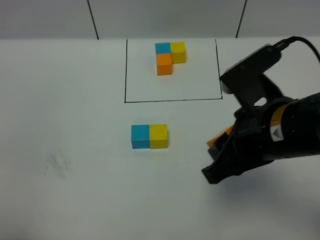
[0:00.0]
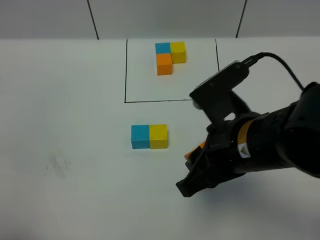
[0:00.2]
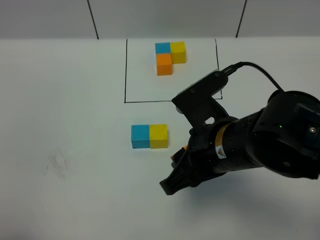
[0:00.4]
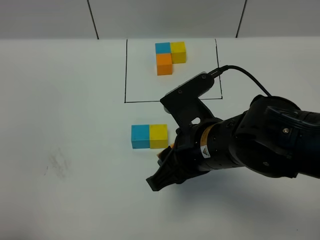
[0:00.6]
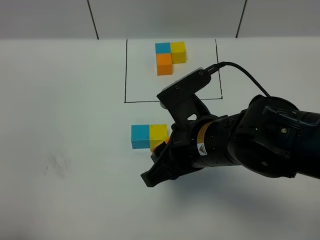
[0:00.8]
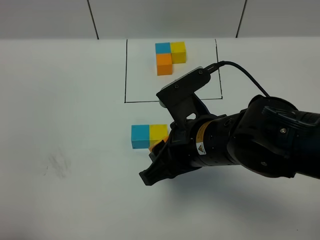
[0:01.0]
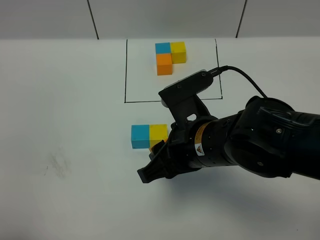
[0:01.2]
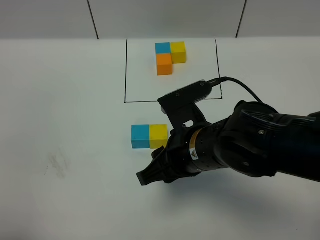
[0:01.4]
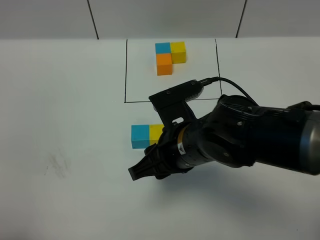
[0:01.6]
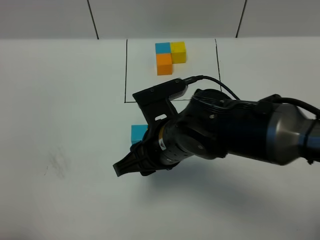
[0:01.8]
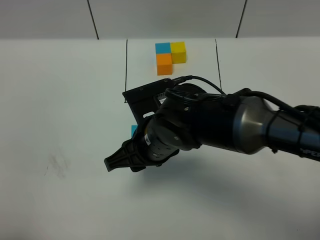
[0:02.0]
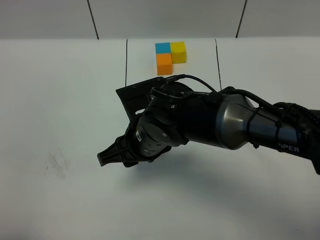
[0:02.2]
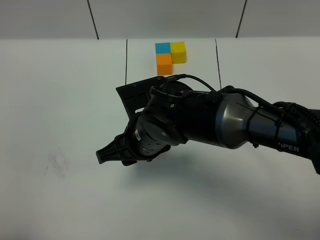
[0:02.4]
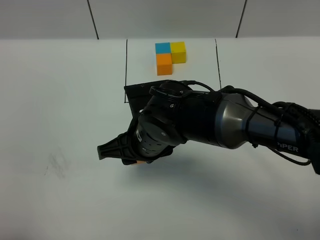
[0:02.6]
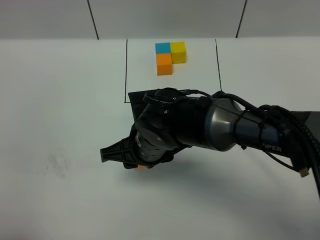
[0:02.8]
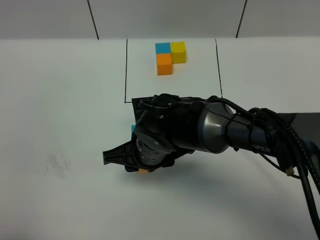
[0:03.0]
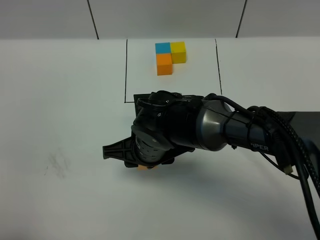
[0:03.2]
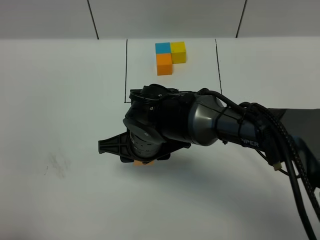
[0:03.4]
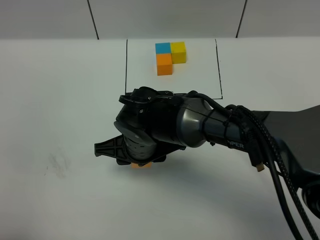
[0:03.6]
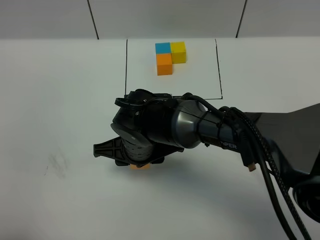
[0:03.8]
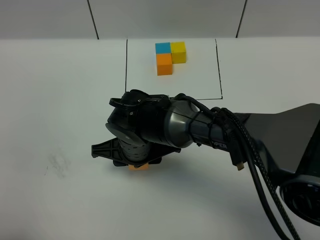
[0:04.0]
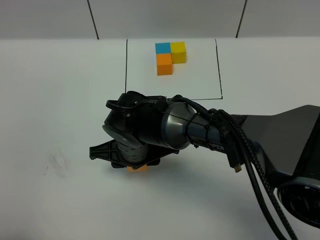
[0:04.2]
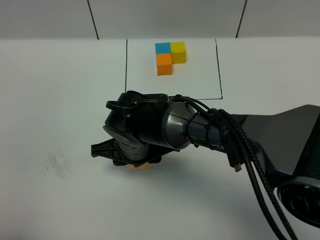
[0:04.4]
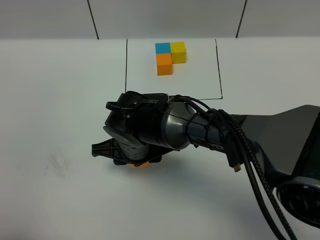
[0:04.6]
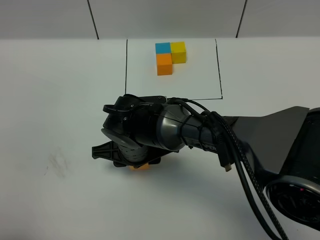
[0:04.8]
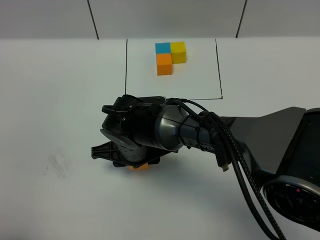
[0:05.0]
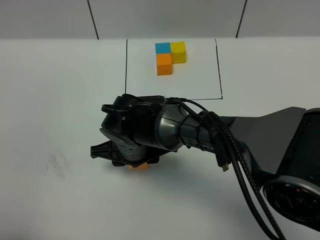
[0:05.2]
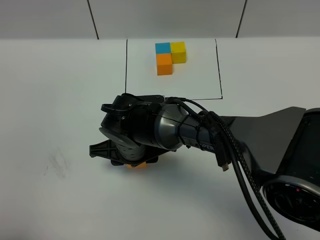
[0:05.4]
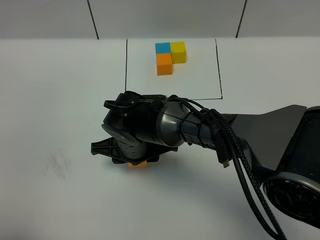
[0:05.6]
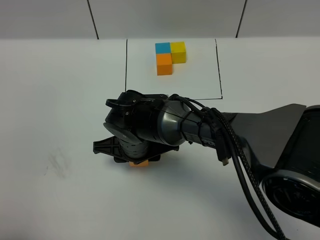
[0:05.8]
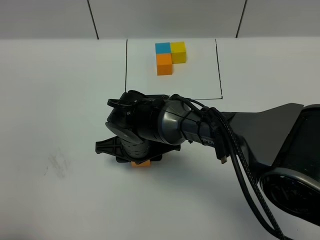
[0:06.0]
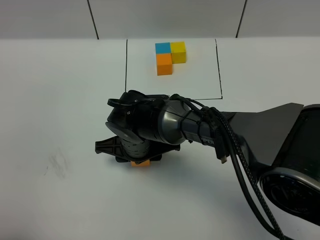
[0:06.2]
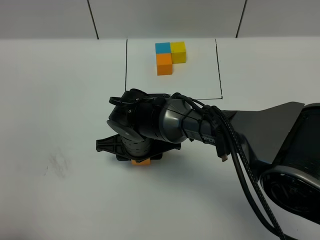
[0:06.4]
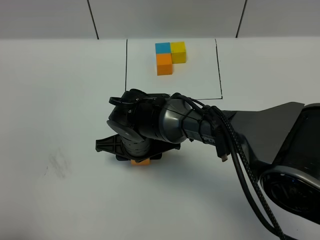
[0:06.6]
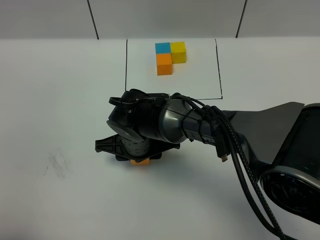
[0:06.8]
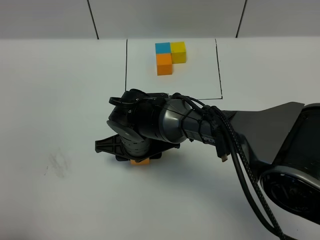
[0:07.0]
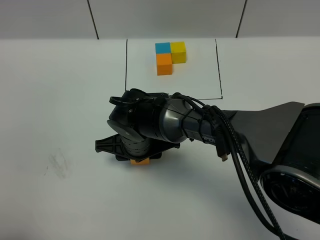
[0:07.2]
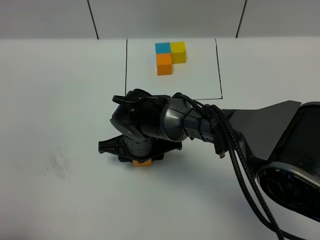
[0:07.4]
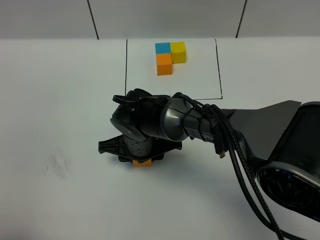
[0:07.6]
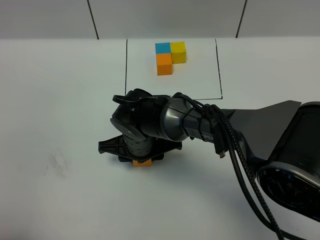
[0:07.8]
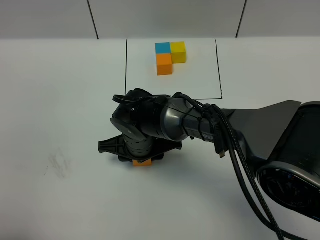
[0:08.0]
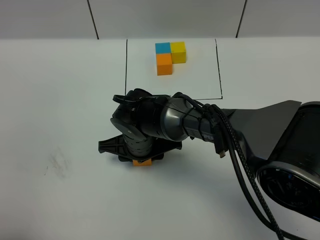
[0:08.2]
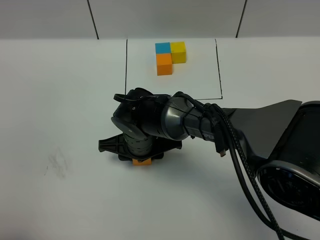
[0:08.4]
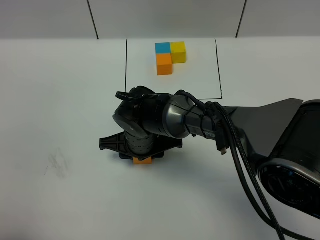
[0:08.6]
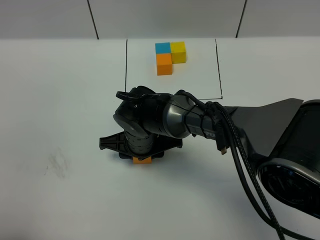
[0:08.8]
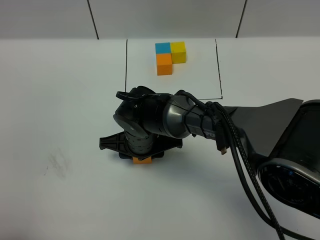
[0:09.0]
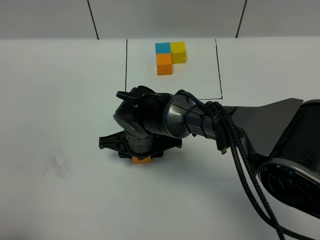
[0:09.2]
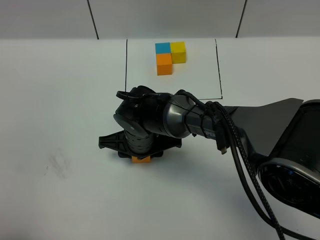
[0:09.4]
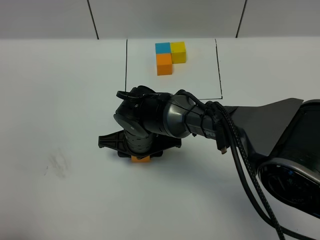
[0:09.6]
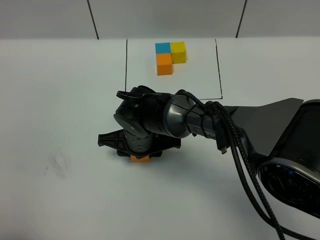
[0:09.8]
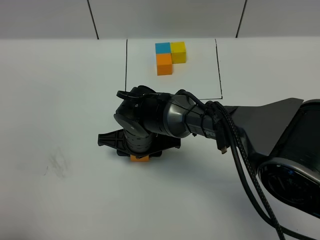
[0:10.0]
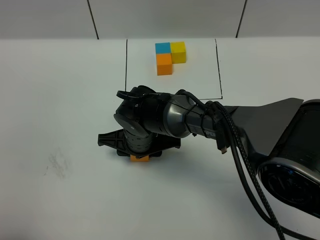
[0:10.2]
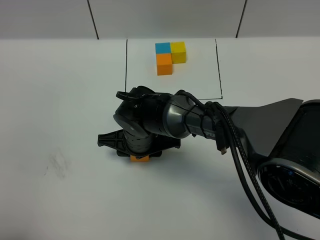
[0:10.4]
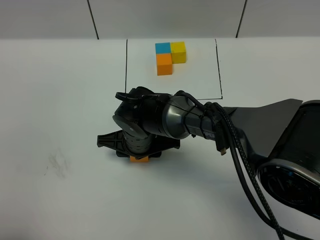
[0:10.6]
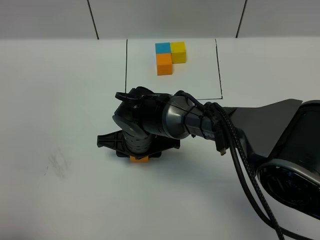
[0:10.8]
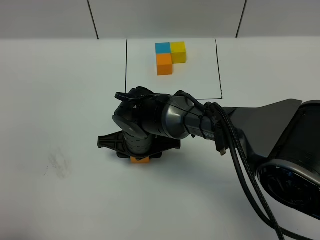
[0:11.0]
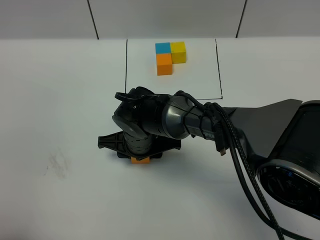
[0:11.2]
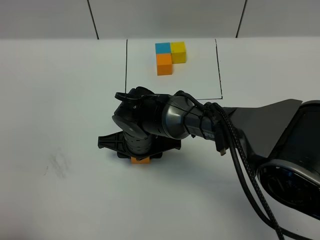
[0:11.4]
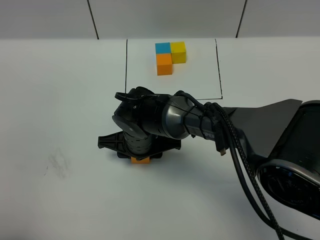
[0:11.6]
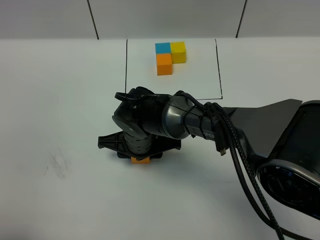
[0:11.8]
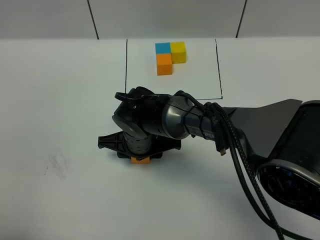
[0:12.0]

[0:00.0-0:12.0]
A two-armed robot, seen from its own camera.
Task of the whole recording: According to the building block template in front, assemble the scattered blocks together.
0:00.0 to 0:01.6: The right gripper moves to the left and downward, roughly 10 cm.
0:01.6 to 0:03.0: The right gripper heads downward and to the left, covering approximately 10 cm.
0:03.0 to 0:06.0: The grippers move only a little.
0:06.0 to 0:07.6: Both grippers stay put.
0:07.6 to 0:12.0: Both grippers stay put.

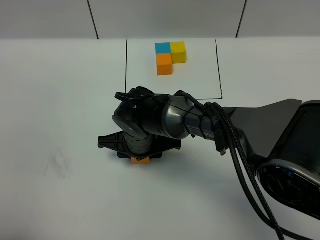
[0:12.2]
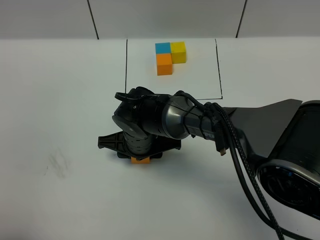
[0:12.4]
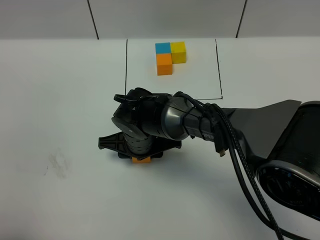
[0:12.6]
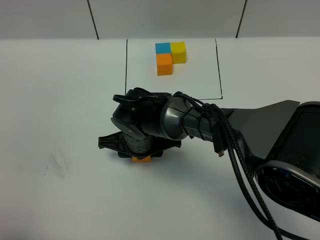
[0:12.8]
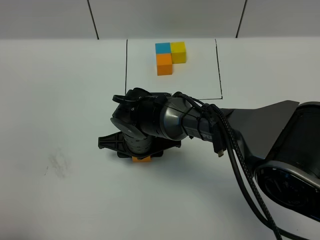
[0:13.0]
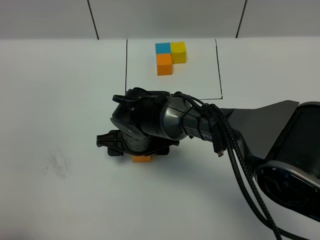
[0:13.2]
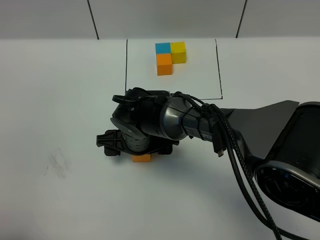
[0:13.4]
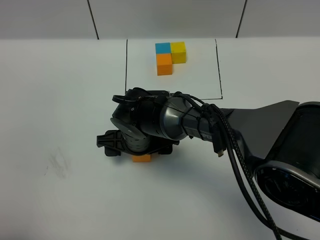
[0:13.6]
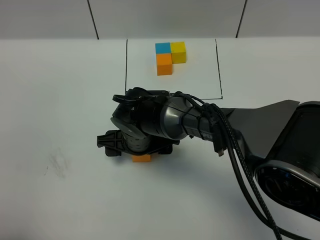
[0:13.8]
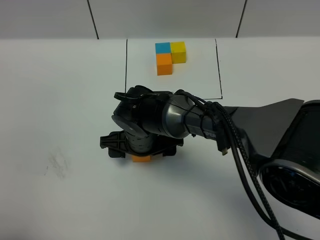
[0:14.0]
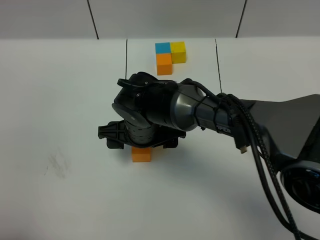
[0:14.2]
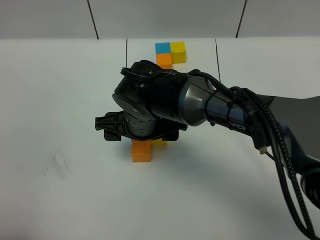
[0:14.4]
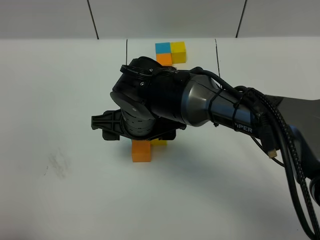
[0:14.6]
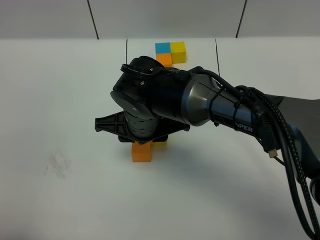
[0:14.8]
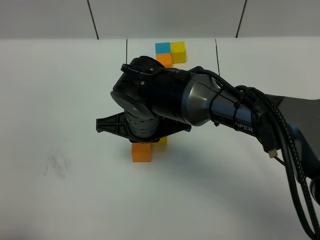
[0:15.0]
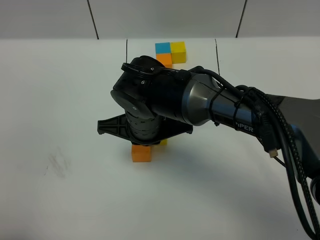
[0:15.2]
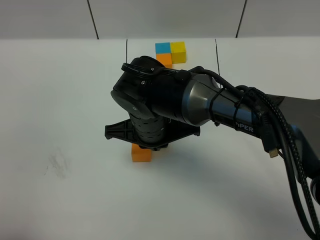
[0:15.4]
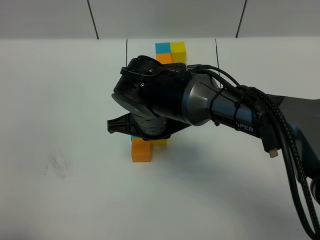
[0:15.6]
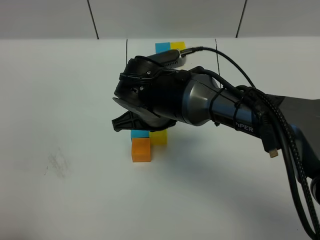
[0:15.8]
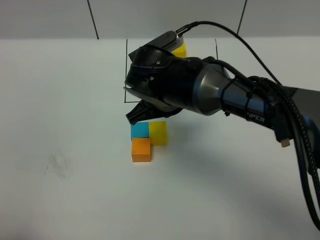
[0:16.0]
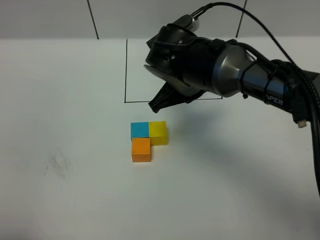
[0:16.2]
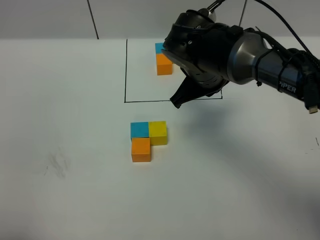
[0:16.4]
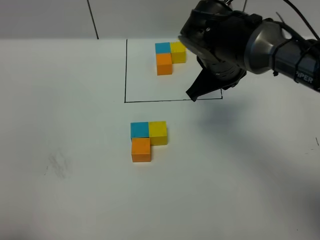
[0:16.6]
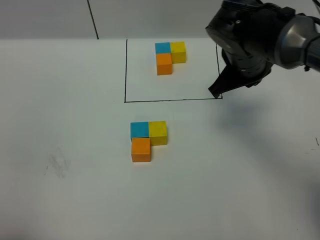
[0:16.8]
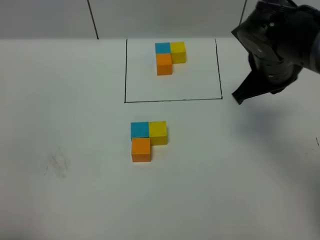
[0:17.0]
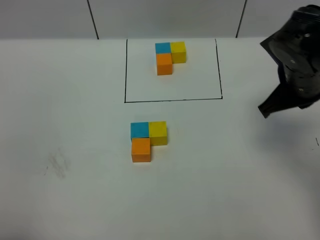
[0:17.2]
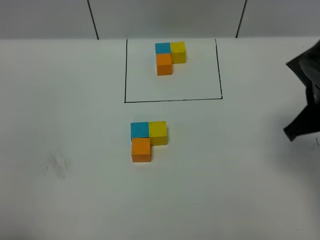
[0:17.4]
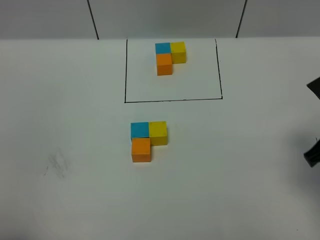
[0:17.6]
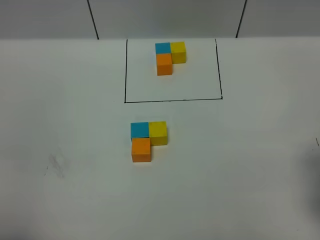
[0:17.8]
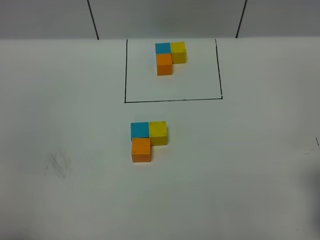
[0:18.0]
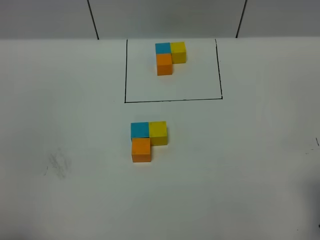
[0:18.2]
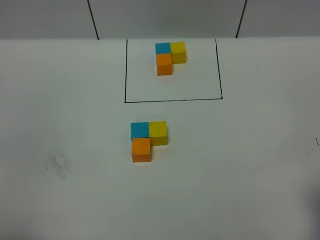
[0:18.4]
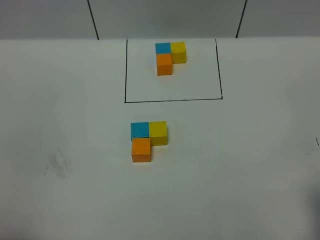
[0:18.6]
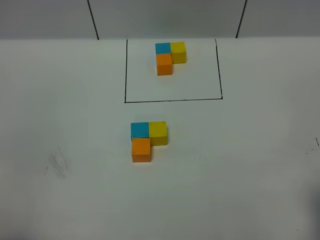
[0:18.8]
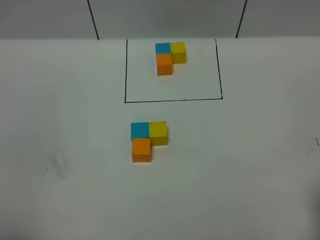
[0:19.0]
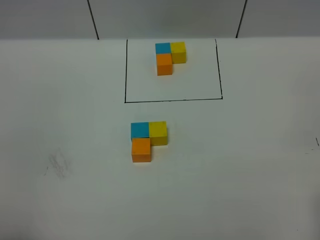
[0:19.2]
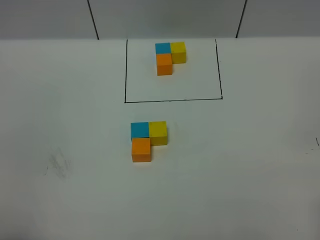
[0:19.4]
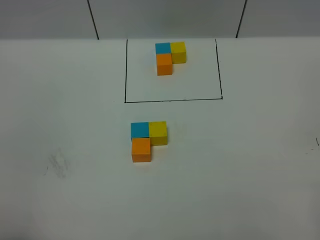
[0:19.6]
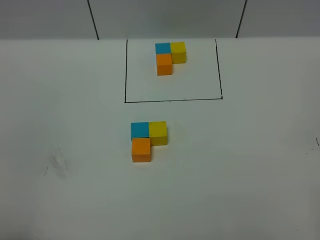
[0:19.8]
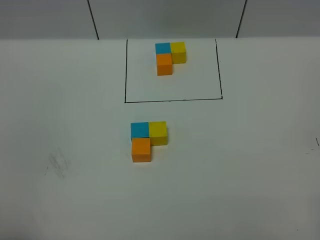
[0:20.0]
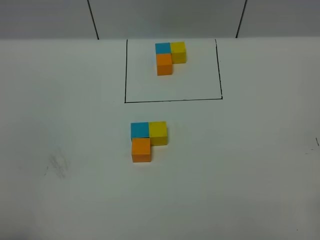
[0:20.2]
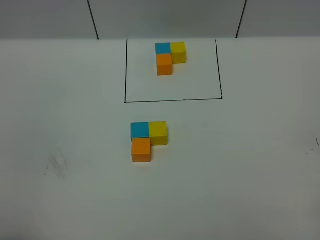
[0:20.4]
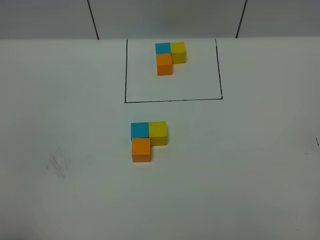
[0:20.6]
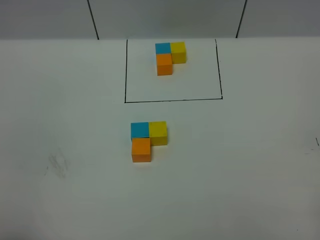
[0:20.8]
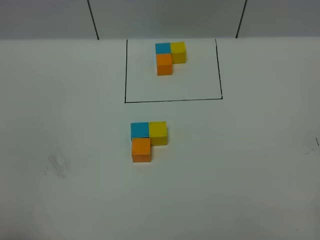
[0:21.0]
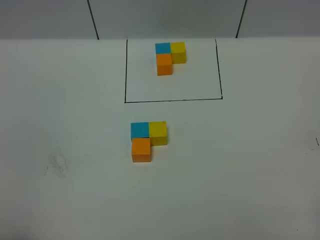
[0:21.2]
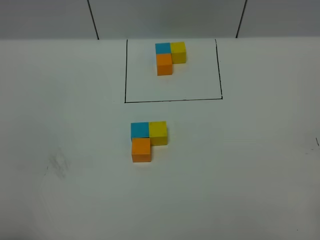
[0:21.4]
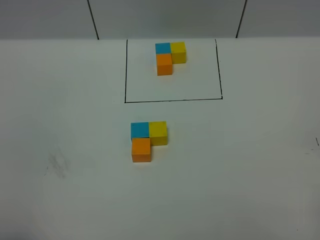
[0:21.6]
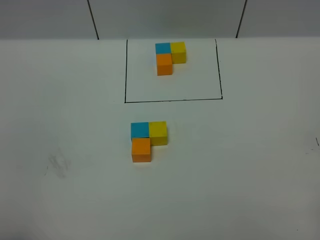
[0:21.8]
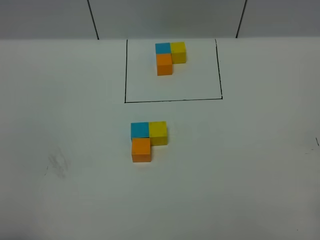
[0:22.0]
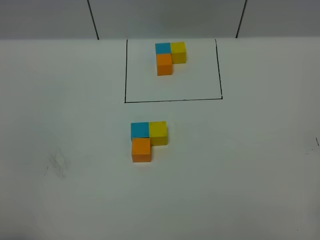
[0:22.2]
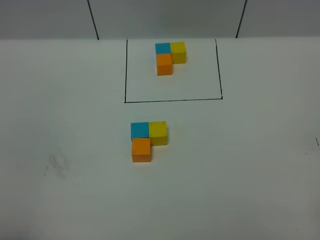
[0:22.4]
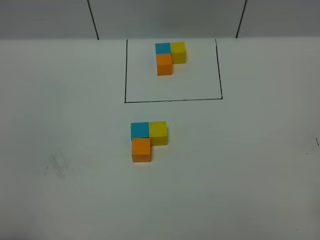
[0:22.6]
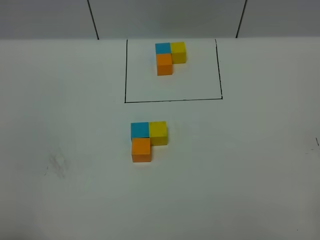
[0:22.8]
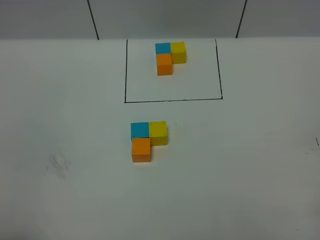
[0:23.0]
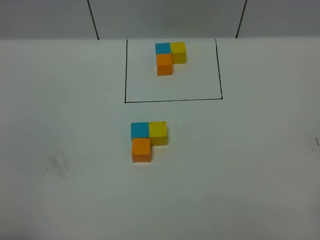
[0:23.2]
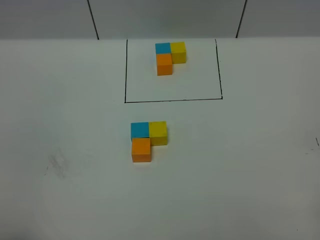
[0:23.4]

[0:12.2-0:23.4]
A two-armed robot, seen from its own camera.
Task of the whole recording: According to the building block template in front, assemble the scattered blocks together.
0:12.2 to 0:13.8: The right gripper opens its fingers.
0:13.8 to 0:15.4: The right gripper heads upward, covering roughly 10 cm, and closes up.
0:15.4 to 0:17.0: The right gripper travels to the right by roughly 20 cm.
0:17.0 to 0:18.6: The right gripper shifts about 25 cm backward and to the right.
0:20.2 to 0:23.4: Both grippers stay about where they are.
